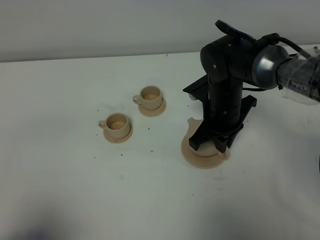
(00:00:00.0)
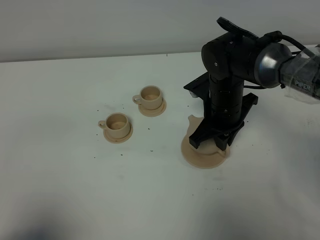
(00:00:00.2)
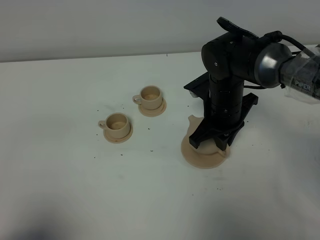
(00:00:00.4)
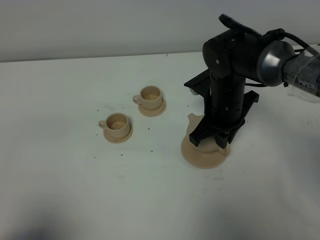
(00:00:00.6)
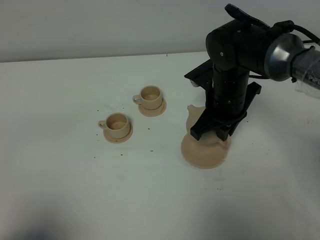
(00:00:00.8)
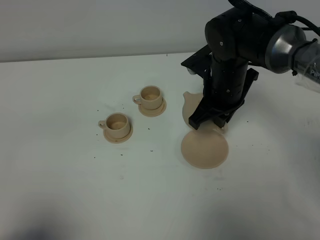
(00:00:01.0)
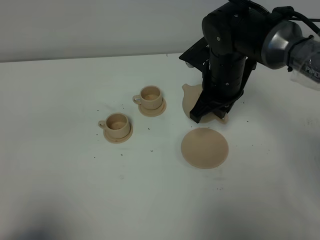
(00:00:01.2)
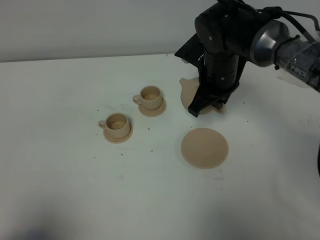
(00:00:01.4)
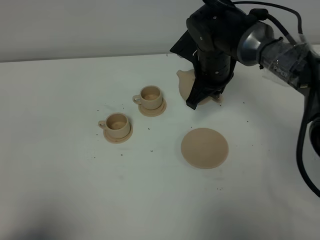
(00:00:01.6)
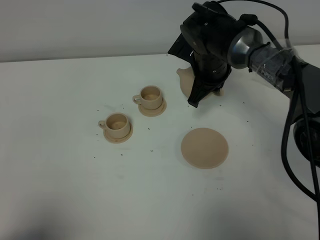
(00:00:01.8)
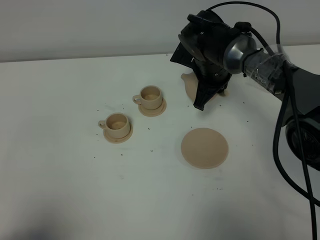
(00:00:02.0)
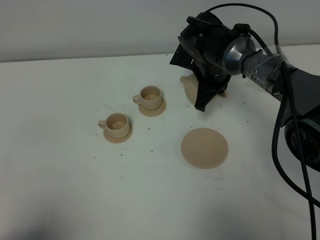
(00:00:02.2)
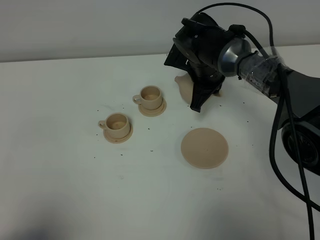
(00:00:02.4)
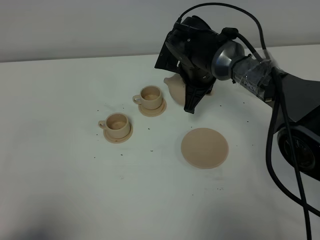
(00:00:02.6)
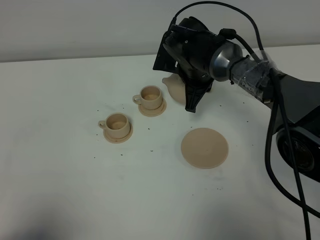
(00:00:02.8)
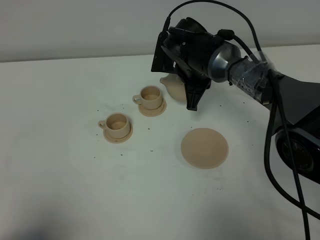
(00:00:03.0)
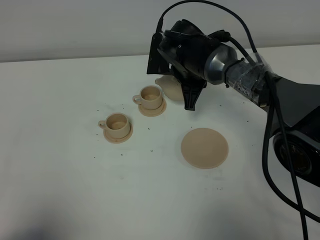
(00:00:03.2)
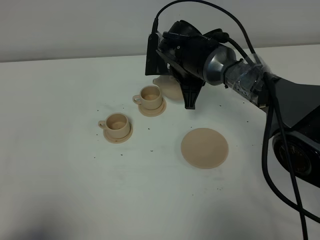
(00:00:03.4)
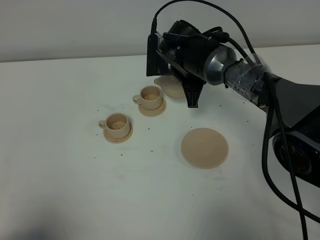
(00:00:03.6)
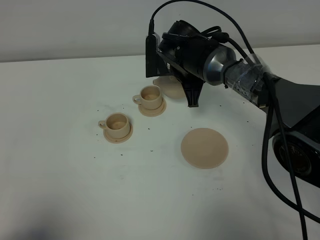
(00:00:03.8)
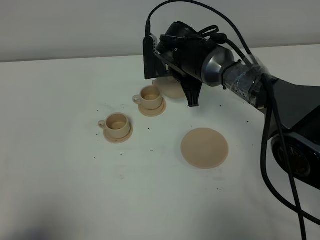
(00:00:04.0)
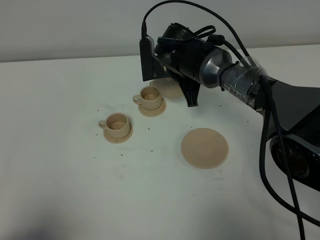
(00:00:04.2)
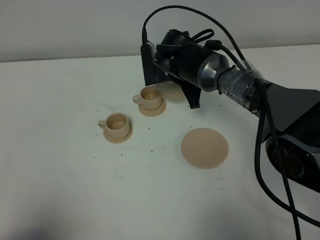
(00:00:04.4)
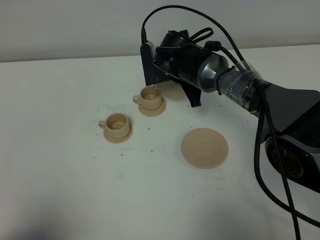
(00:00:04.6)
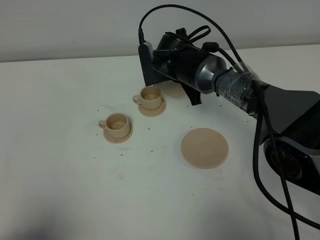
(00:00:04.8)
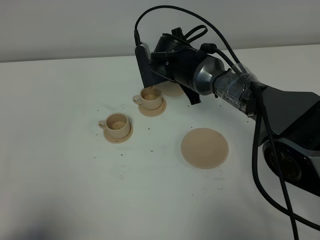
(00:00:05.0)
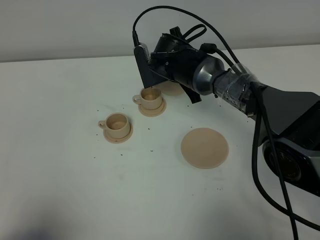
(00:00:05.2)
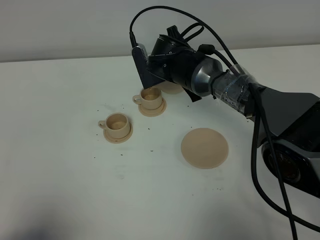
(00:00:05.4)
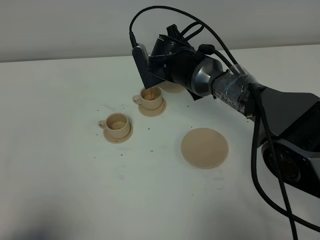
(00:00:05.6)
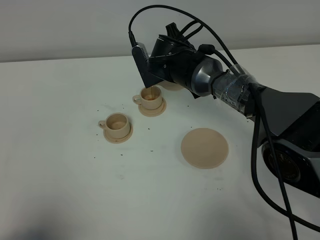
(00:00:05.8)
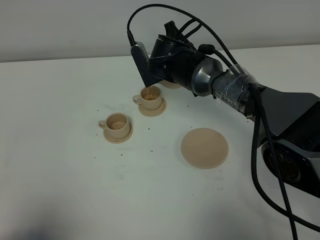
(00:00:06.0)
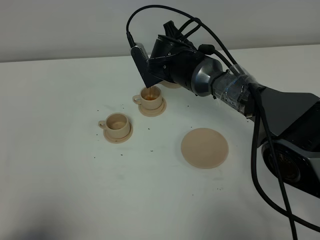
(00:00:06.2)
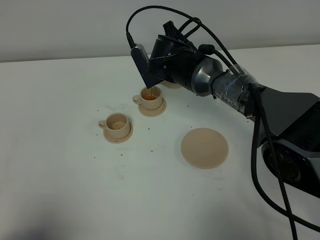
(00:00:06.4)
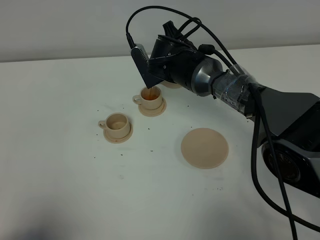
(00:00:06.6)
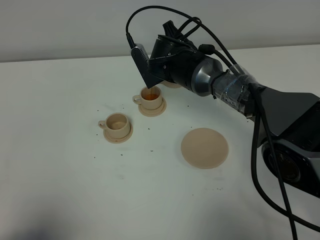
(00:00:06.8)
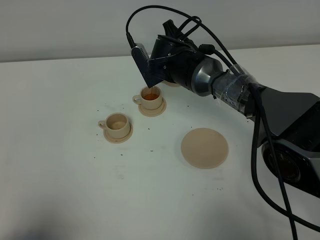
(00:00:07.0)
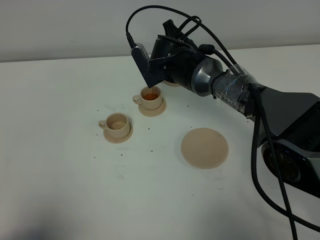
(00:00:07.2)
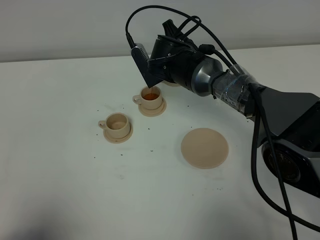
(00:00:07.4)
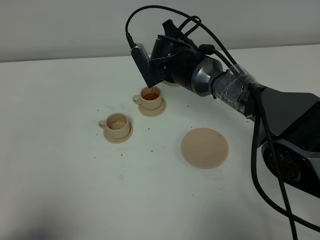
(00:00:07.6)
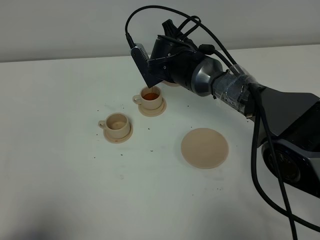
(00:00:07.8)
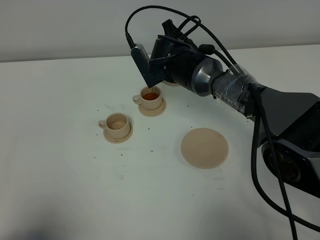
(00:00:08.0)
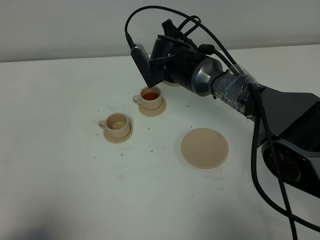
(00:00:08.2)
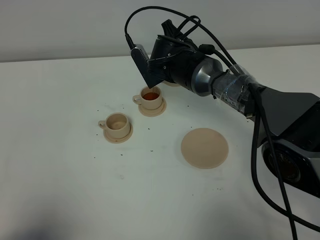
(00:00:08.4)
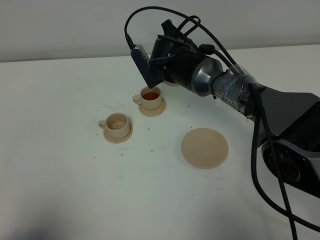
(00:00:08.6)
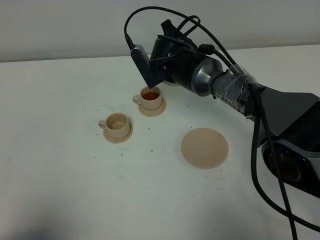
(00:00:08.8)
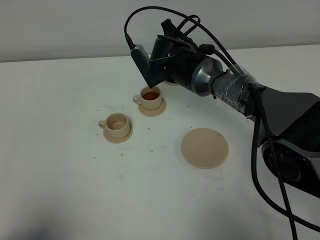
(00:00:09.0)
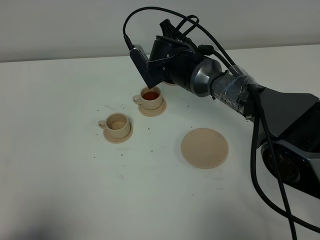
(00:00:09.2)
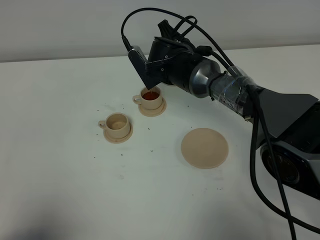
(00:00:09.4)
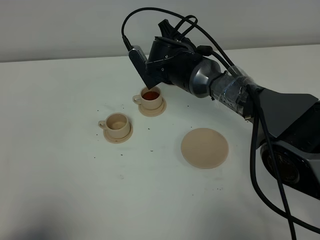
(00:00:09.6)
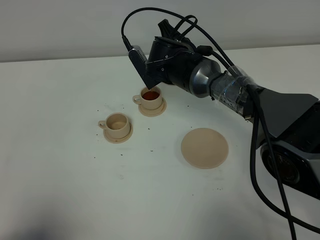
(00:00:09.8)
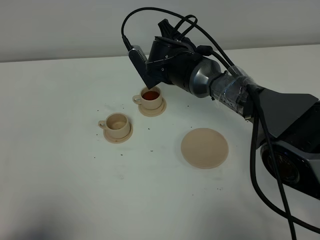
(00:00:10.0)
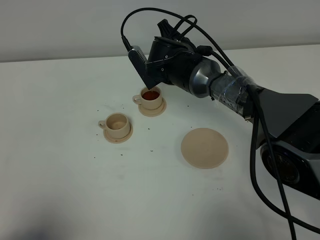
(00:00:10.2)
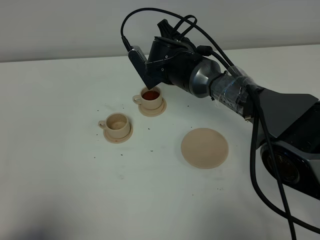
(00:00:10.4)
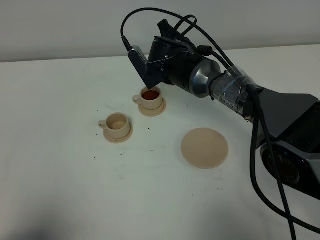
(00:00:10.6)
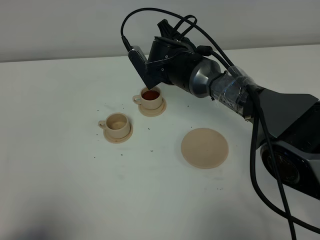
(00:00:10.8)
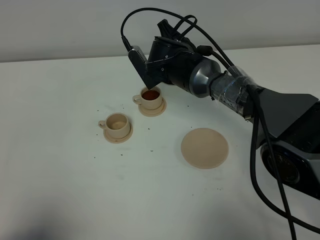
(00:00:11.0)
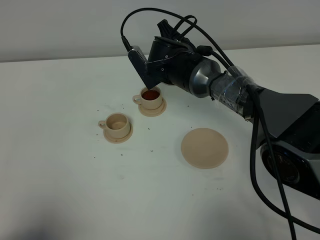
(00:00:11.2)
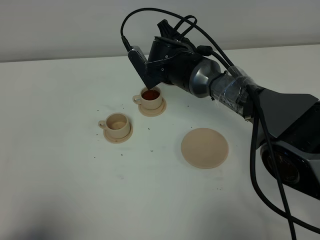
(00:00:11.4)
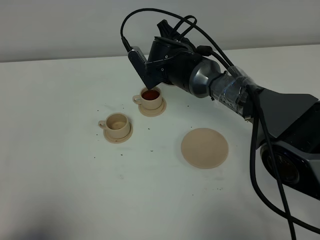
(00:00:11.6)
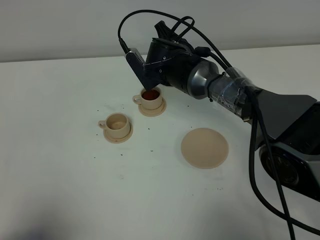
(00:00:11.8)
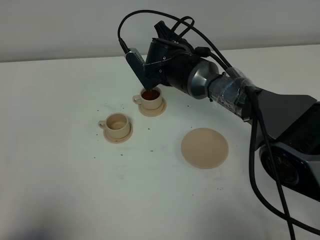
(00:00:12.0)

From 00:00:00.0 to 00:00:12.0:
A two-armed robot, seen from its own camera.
Task of the whole recording: grasp the brown teapot and pour the tea into the two brown teacups one by one, put the brown teapot back in its original place.
From 00:00:00.0 to 00:00:01.6: The right gripper travels forward by approximately 5 cm.
From 00:00:03.0 to 00:00:04.4: The grippers make only small movements.
From 00:00:04.4 to 00:00:06.0: The grippers move only a little.
From 00:00:06.0 to 00:00:07.6: The two grippers keep their place.
From 00:00:07.6 to 00:00:10.4: Both grippers stay put.
From 00:00:10.4 to 00:00:12.0: The two grippers keep their place.

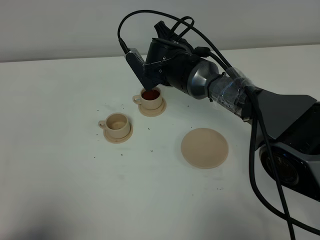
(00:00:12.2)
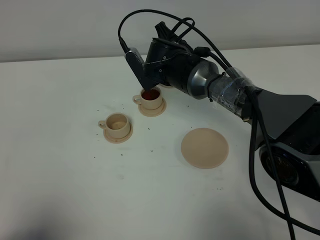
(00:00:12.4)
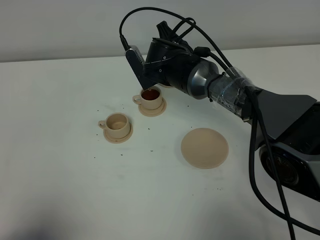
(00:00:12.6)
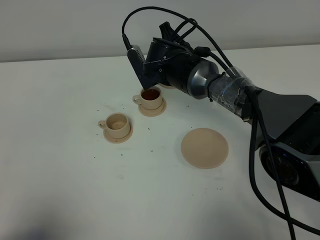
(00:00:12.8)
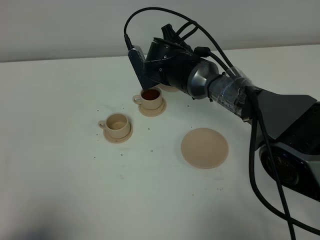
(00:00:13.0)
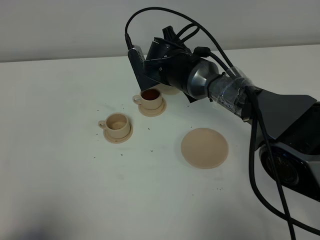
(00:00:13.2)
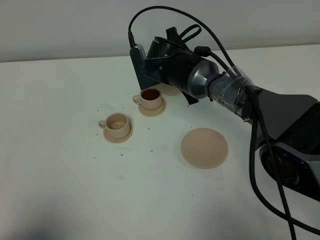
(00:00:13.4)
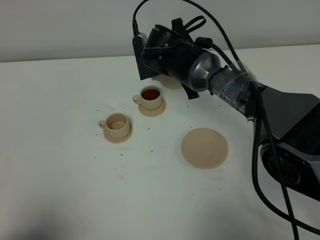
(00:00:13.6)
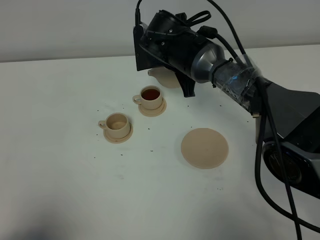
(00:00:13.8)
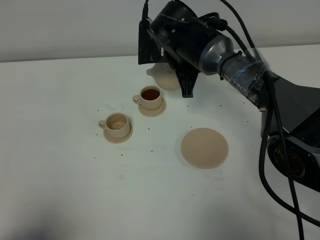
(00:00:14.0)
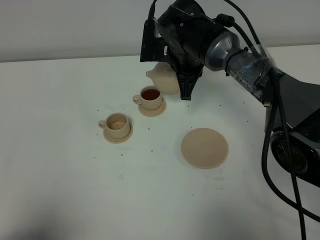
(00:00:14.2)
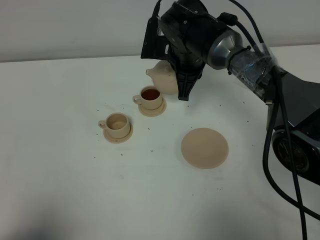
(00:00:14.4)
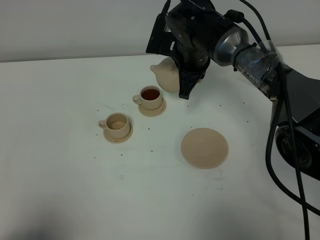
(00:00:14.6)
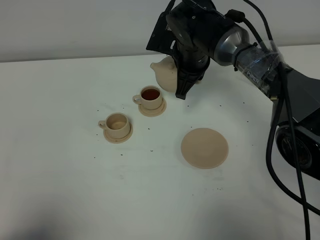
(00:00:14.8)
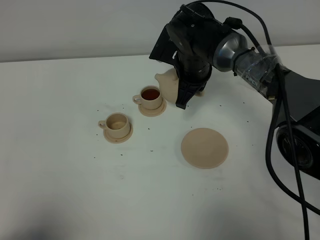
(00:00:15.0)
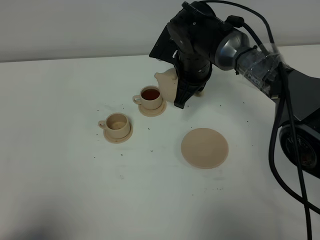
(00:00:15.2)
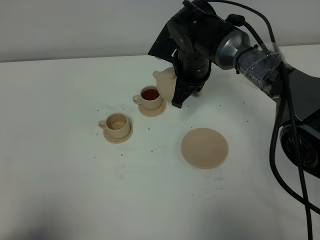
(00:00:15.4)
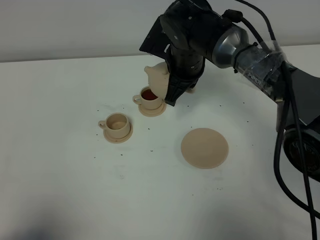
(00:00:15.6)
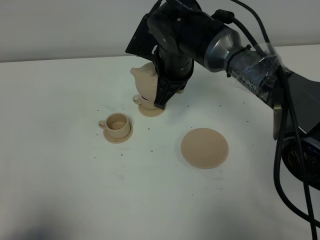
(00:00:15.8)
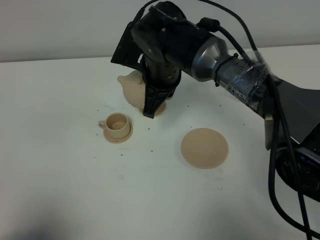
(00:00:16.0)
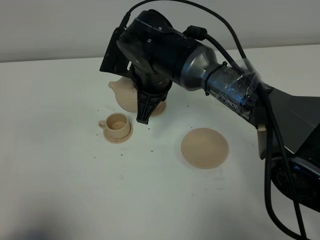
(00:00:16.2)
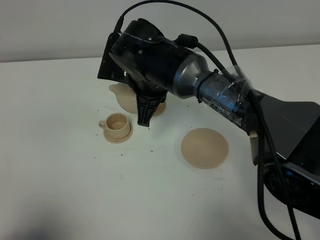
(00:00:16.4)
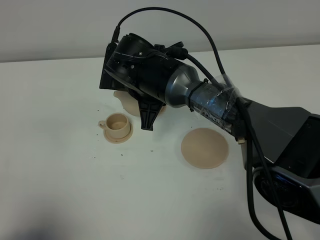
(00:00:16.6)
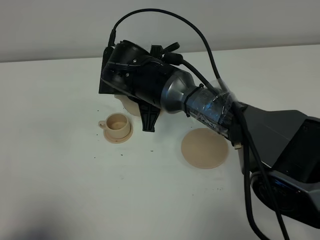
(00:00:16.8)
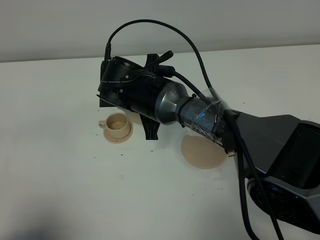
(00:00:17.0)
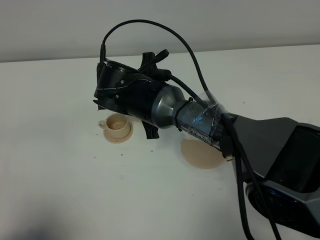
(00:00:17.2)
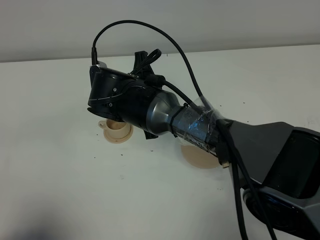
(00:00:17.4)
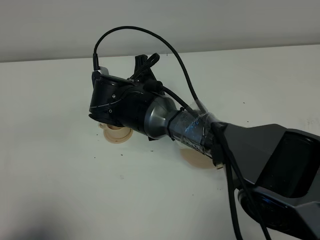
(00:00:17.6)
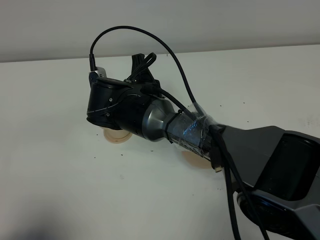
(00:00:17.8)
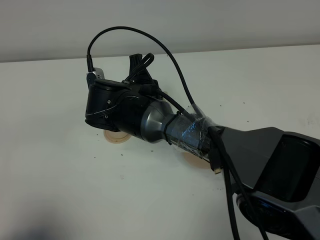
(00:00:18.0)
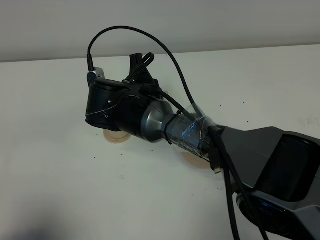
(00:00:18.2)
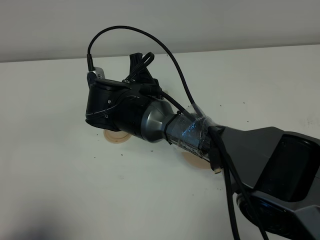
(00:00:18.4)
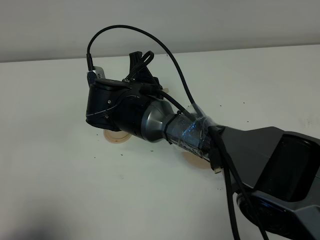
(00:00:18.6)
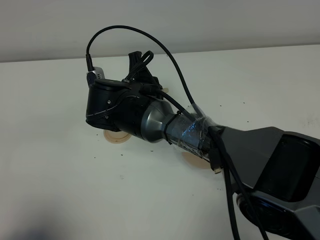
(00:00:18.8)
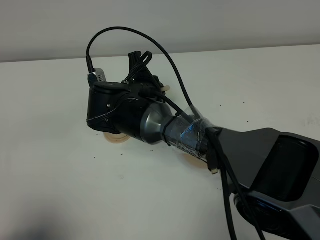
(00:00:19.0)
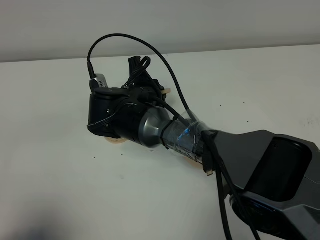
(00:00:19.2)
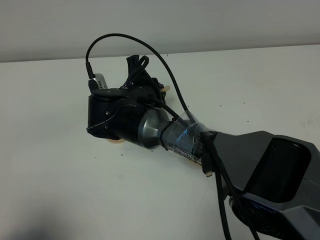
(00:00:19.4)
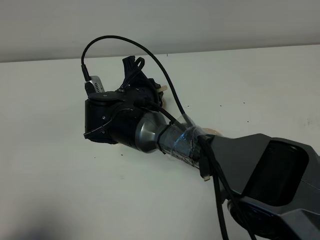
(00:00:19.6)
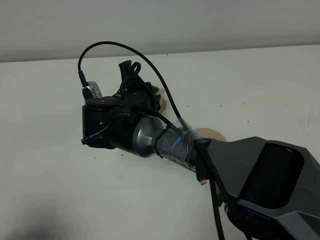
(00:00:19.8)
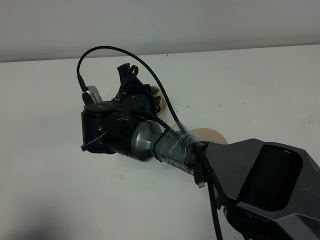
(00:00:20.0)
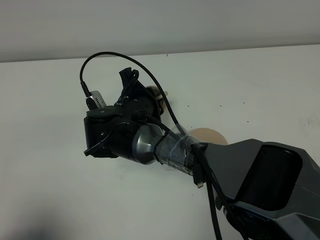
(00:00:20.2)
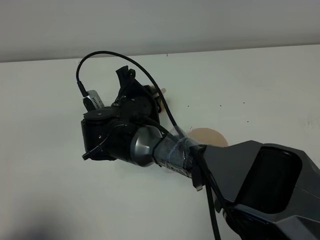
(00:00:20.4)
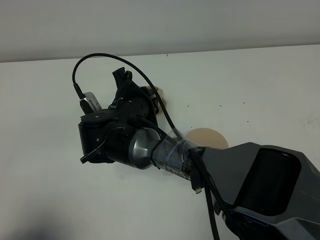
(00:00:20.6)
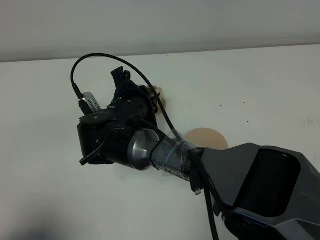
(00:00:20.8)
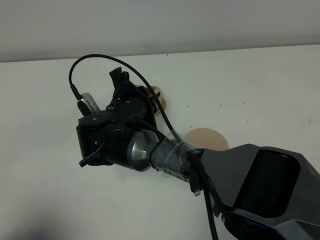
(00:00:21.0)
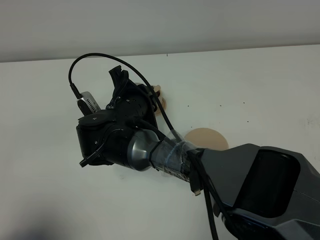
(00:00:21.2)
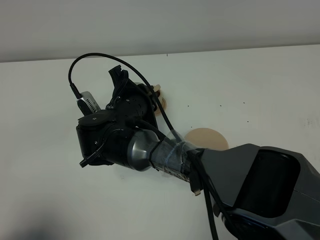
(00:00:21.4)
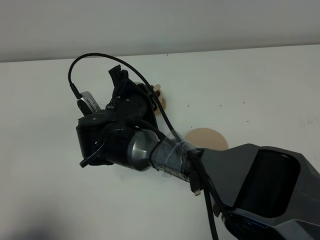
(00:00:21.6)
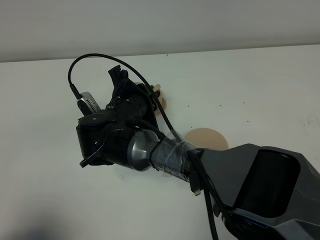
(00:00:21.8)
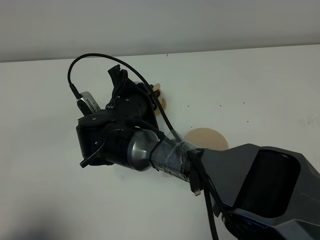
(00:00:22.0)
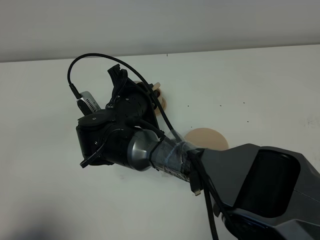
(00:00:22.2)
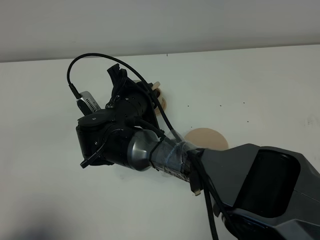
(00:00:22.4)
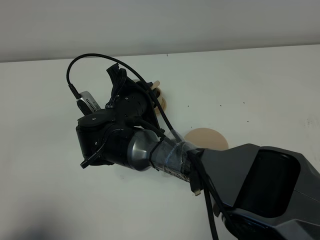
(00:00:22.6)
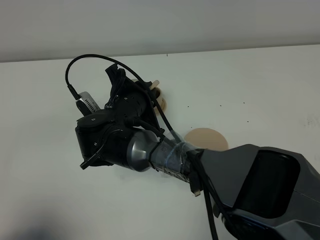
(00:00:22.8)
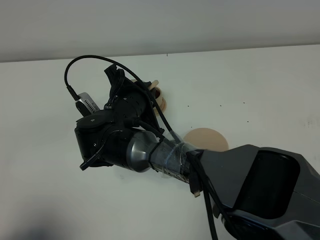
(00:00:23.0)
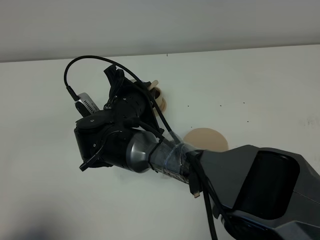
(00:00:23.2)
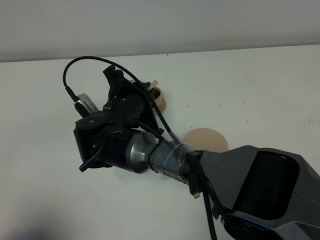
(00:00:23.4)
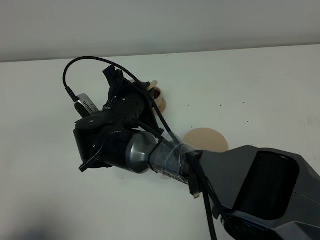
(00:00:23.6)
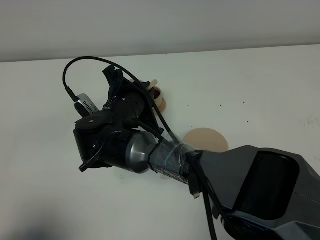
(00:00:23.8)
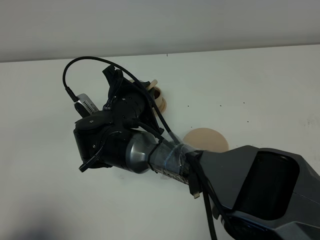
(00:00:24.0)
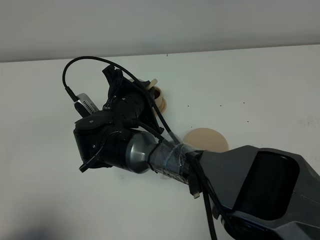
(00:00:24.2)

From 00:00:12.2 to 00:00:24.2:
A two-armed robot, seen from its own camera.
Task of the whole recording: grasp the brown teapot and pour the tea into the two brown teacups one by one, put the brown teapot back in its original place.
From 00:00:15.2 to 00:00:16.6: The right gripper travels to the left and backward by about 10 cm.
From 00:00:18.2 to 00:00:19.8: The grippers stay close to where they were, moving slightly.
From 00:00:19.8 to 00:00:21.2: The grippers move only a little.
From 00:00:21.2 to 00:00:22.6: Neither gripper changes place.
From 00:00:22.6 to 00:00:24.2: The two grippers keep their place.
